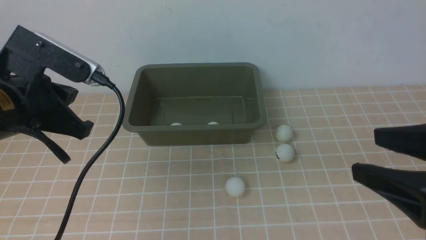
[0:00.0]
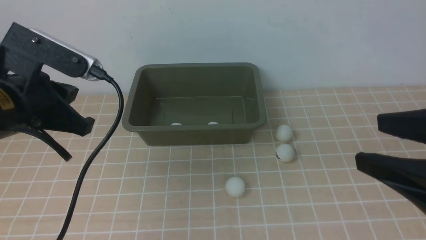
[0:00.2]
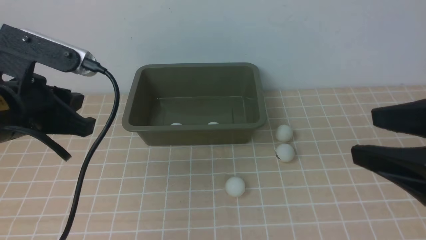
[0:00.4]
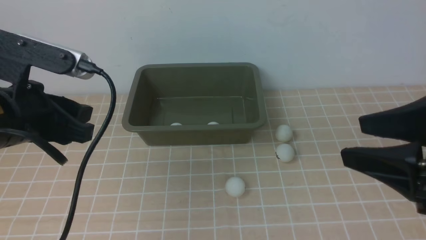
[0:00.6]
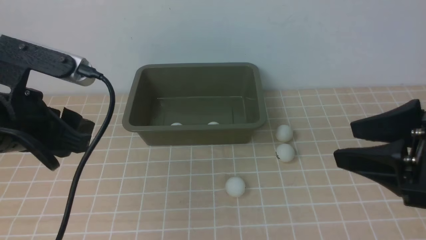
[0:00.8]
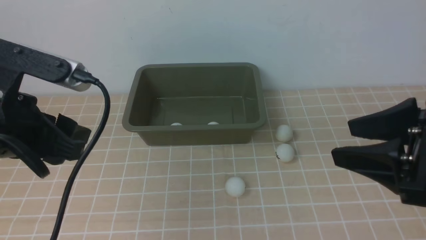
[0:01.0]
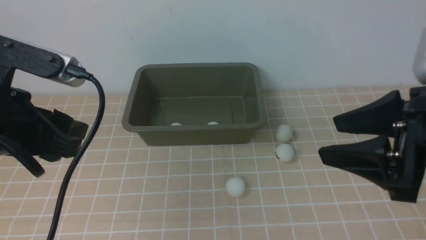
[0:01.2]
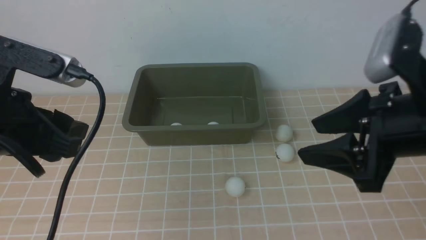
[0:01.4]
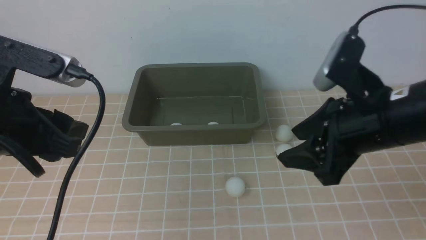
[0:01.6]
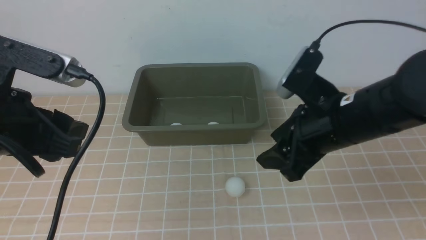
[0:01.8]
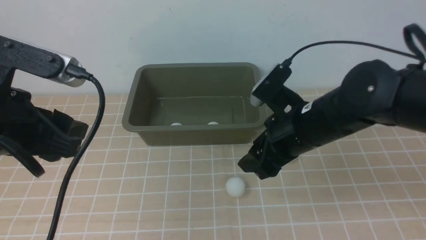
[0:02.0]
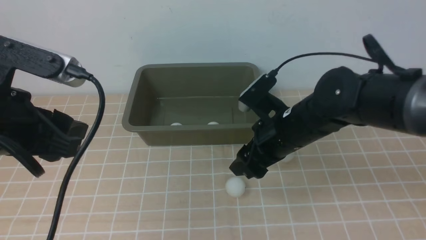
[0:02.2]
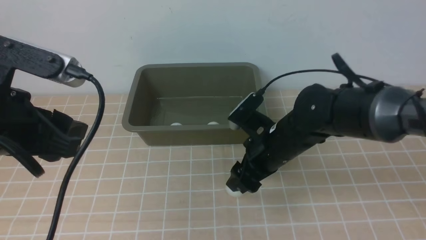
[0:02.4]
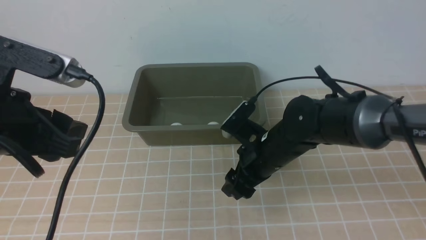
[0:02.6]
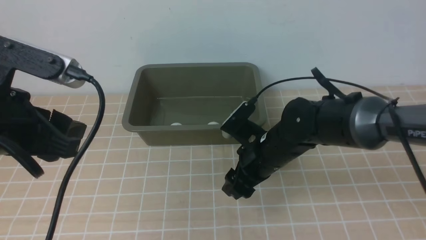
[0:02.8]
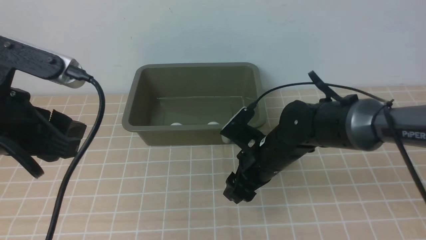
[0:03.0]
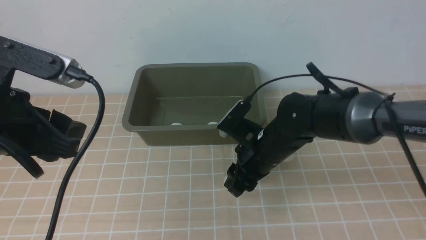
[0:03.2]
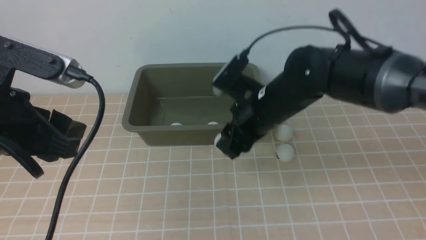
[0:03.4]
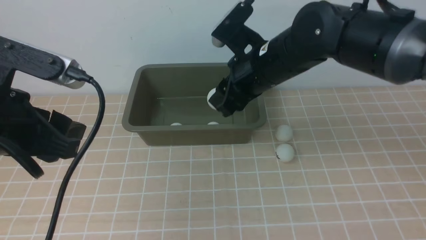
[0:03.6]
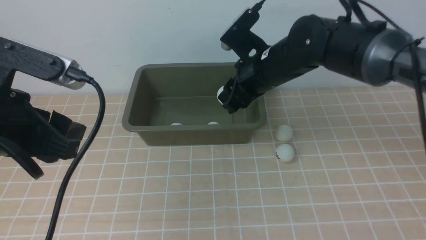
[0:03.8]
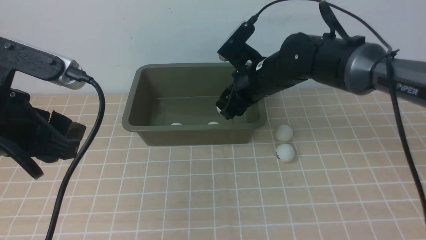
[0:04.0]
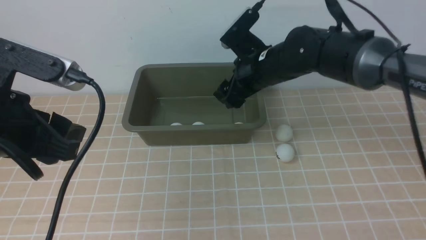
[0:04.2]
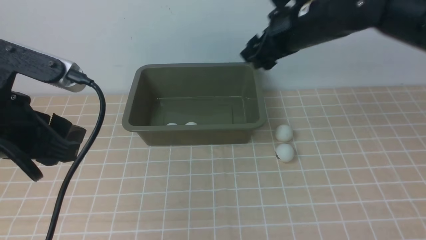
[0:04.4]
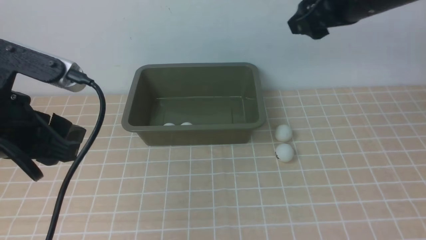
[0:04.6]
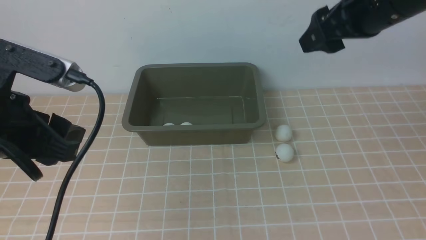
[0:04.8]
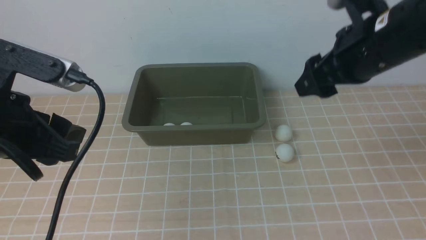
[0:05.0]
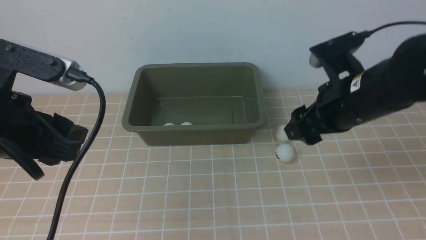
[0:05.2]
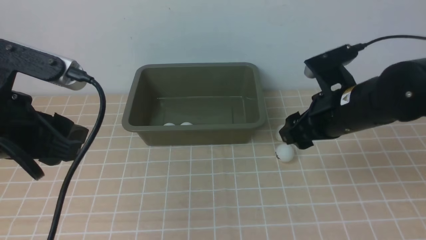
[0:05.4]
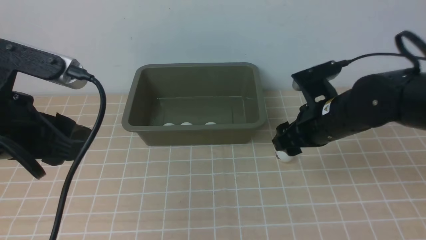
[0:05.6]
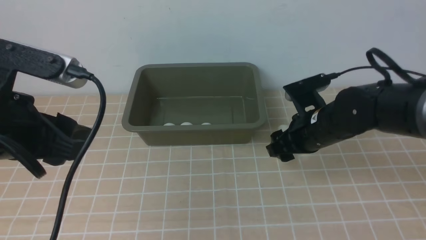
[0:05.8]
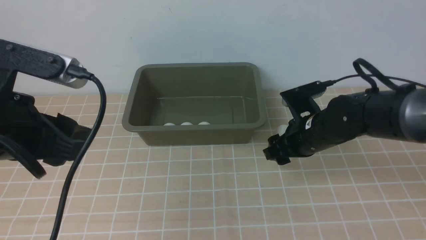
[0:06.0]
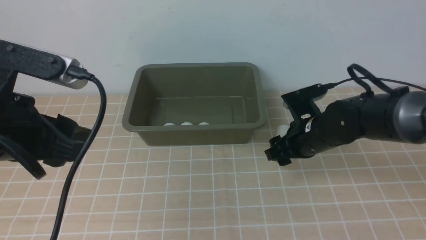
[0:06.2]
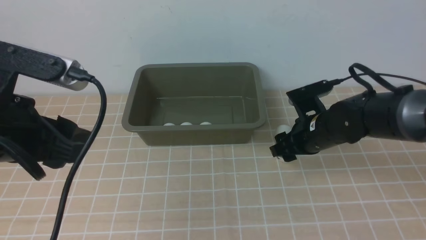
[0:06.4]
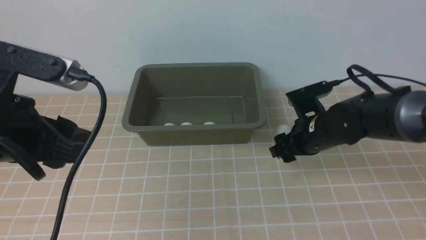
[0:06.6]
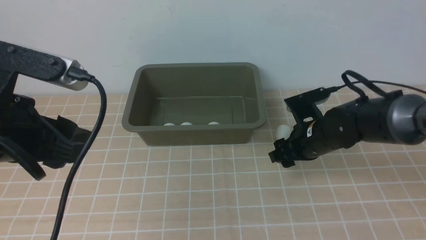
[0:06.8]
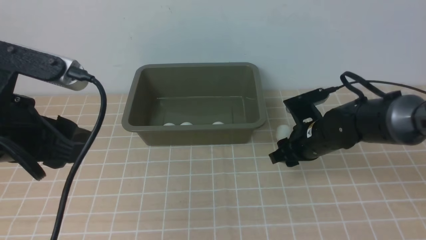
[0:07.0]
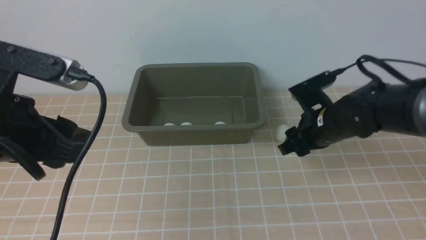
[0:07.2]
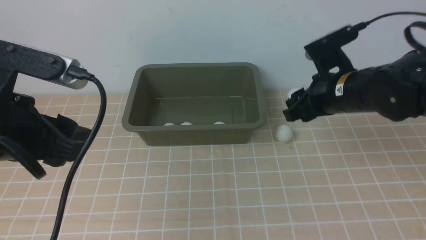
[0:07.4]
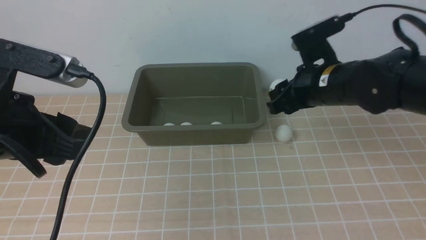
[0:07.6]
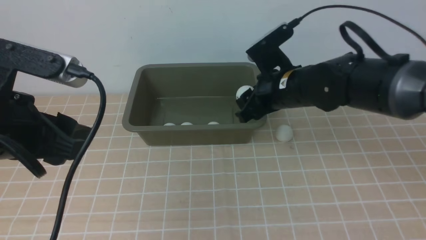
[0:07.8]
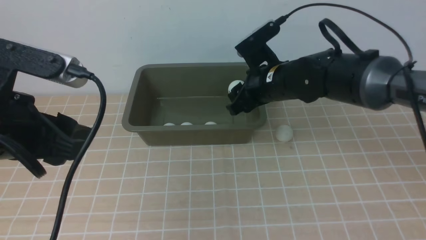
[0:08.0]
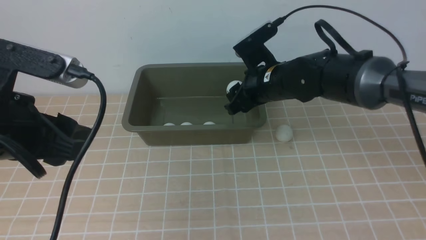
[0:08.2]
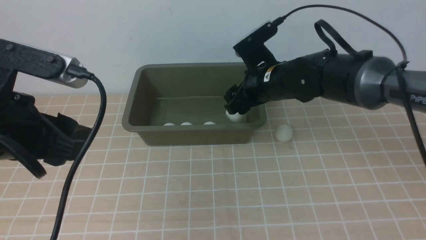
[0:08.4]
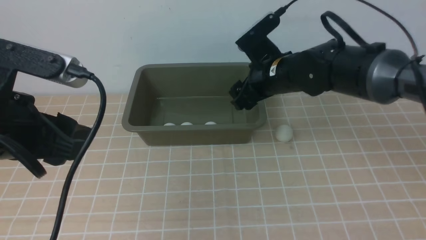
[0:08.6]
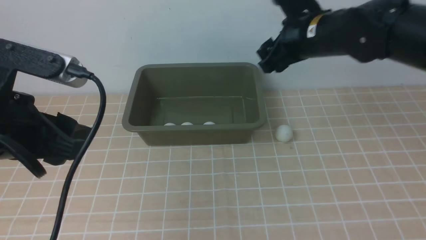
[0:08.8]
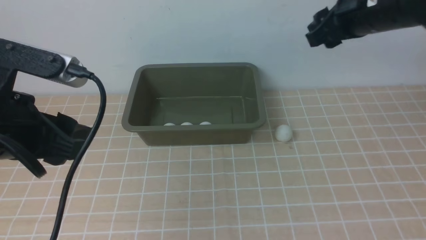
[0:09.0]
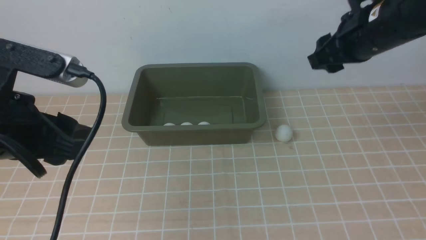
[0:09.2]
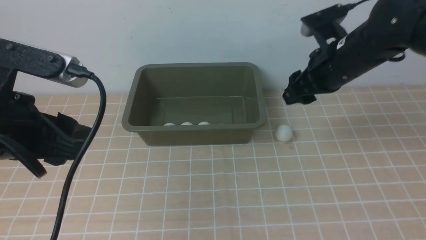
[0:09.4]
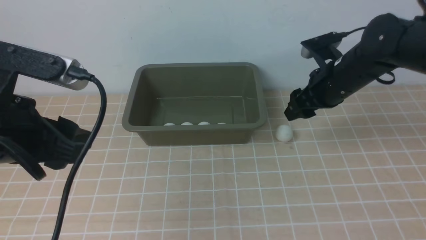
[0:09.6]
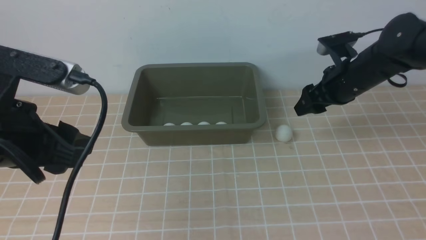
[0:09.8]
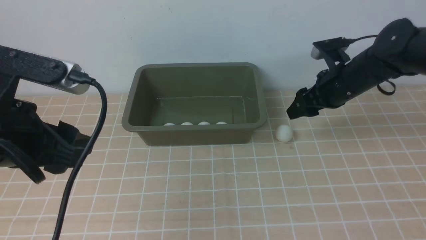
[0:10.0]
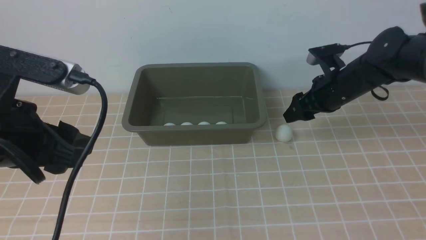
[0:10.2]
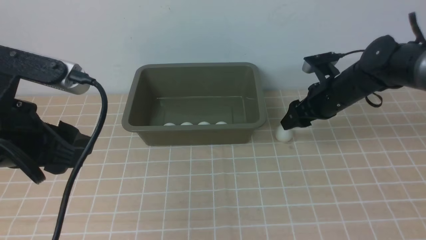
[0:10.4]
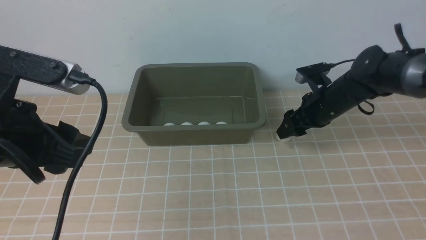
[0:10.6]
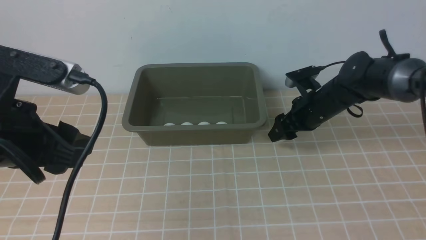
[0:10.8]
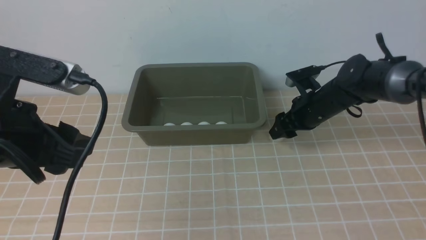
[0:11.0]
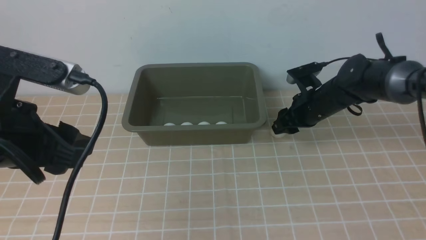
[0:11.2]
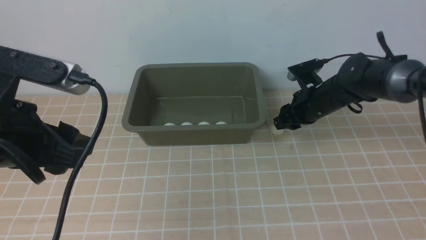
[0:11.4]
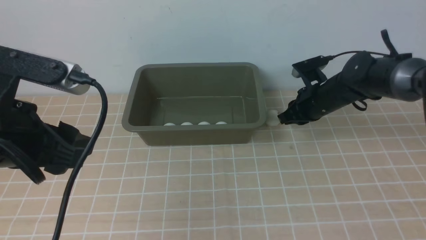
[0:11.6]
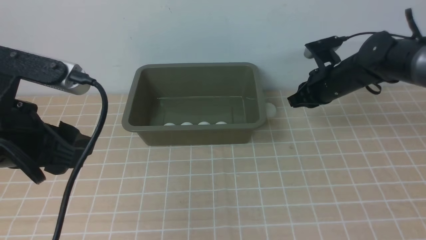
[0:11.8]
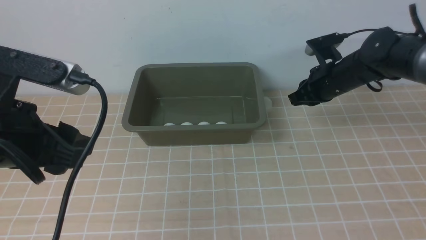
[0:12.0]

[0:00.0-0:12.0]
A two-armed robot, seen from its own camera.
Step, 0:00.0 to 0:03.2: use the right arm to clamp the table tennis ball closest to it.
Step, 0:03.4 to 0:04.2: use the right arm to put the table tennis ball into the box.
Step, 0:04.4 to 0:06.6: use the right arm to clamp the table tennis ball closest to it.
Step, 0:06.8 to 0:08.0: use the right arm to put the table tennis ball into the box.
0:00.0 to 0:01.6: The right gripper is displaced forward and to the left by approximately 15 cm. Meanwhile the left gripper opens up.
0:01.6 to 0:03.0: The right gripper shifts about 20 cm downward, to the left and forward.
0:03.0 to 0:04.4: The right gripper goes about 20 cm upward.
0:04.4 to 0:06.0: The right gripper shifts approximately 15 cm downward.
0:06.0 to 0:07.6: The right gripper is displaced upward by roughly 10 cm.
0:07.6 to 0:09.0: The right gripper goes about 10 cm upward.
0:09.0 to 0:10.4: The right gripper shifts approximately 15 cm downward.
0:10.4 to 0:12.0: The right gripper closes up.

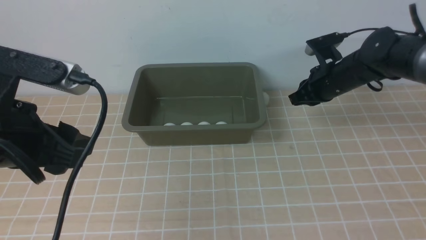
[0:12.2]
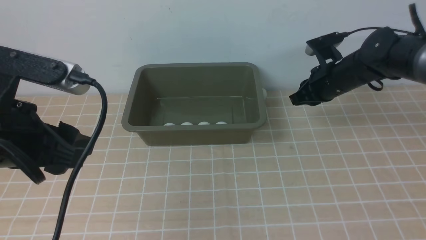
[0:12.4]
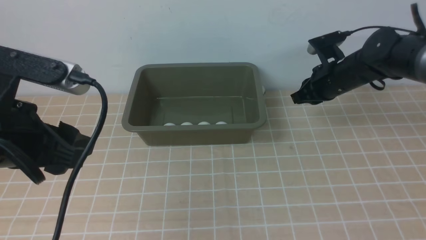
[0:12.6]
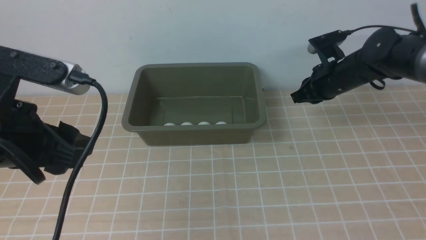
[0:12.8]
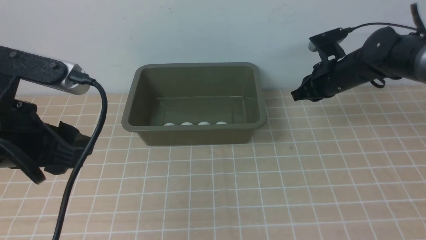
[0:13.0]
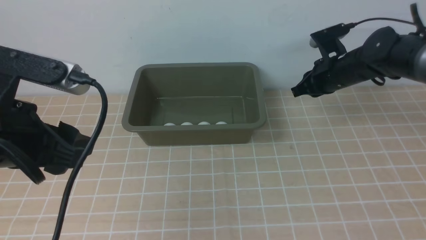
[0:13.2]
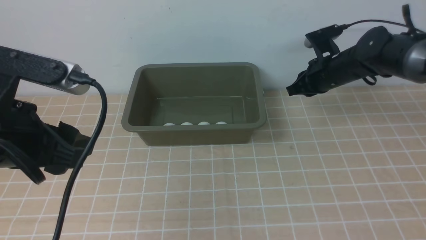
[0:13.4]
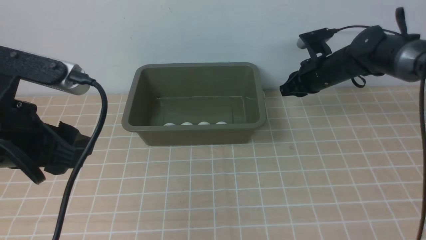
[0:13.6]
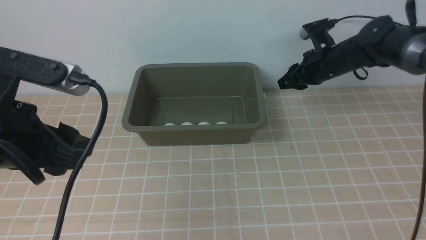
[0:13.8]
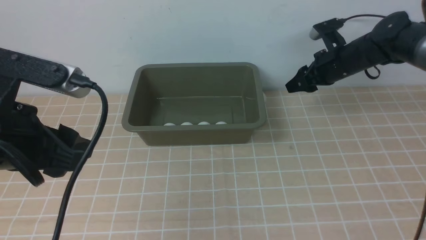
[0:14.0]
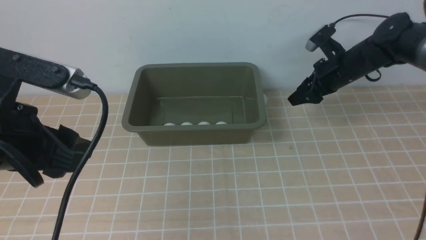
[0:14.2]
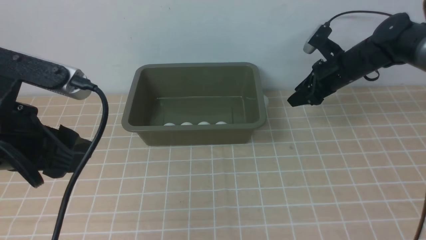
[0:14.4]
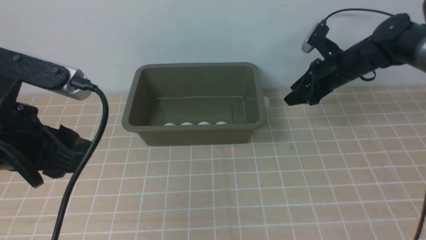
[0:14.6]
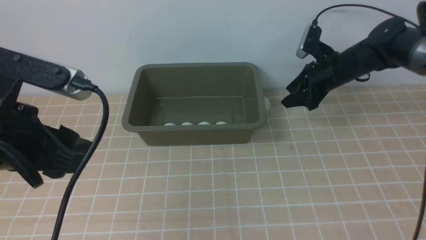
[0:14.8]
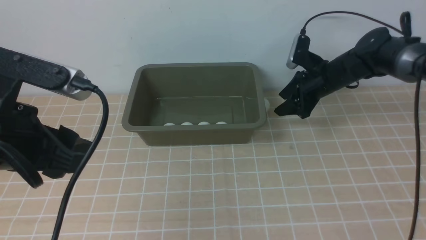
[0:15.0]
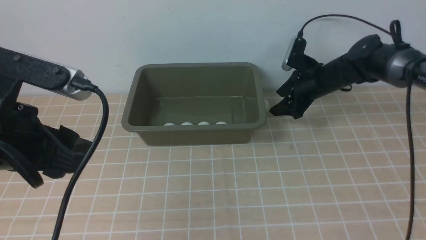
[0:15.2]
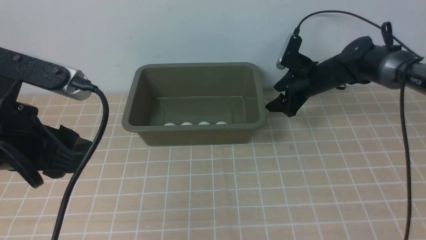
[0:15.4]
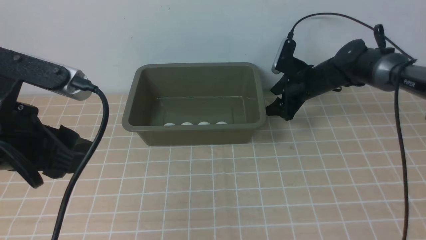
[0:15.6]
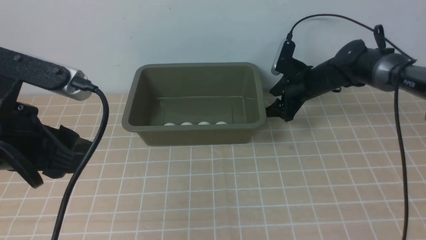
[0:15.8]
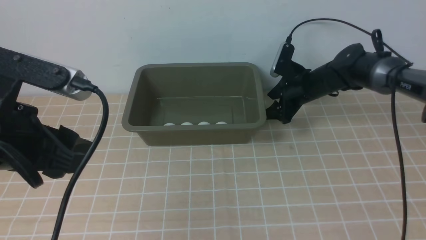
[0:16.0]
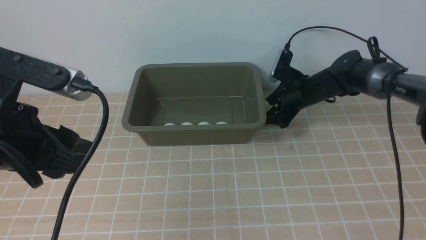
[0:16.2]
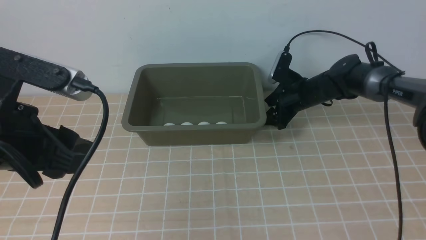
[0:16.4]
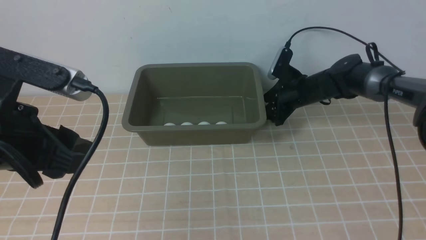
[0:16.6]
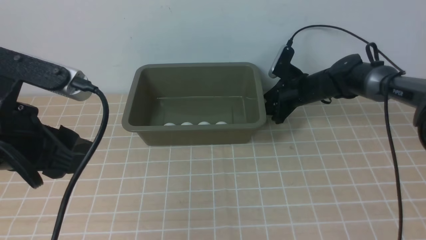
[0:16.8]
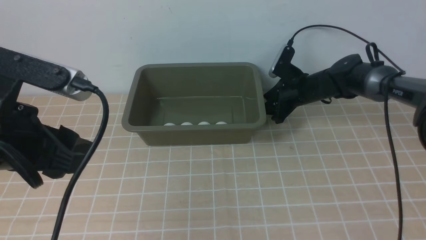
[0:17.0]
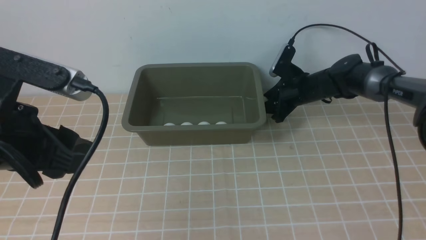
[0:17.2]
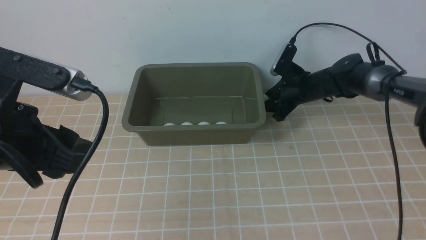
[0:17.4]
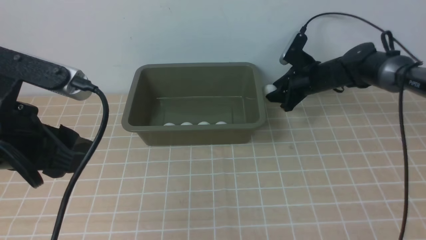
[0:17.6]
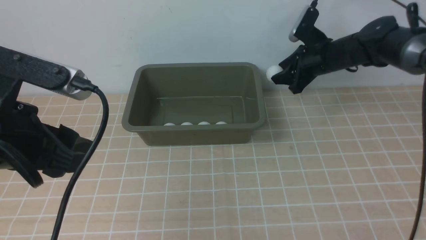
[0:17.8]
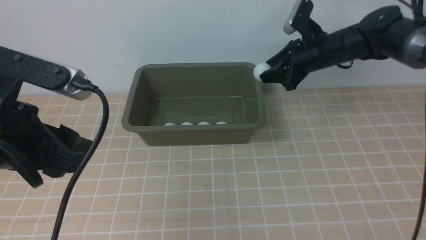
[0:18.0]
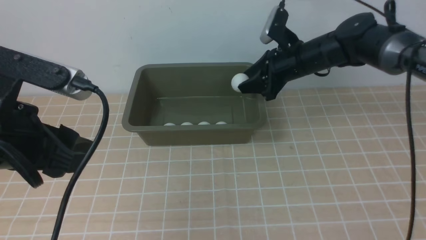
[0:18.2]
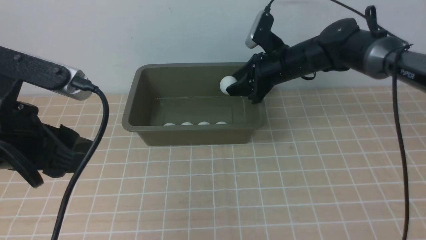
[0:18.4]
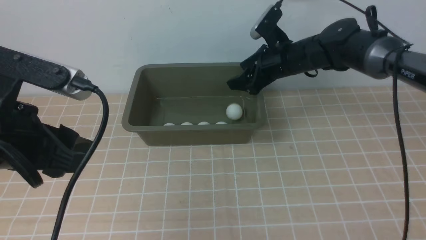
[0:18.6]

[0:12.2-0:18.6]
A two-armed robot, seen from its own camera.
Step, 0:12.2 to 0:17.6: use the right arm to clamp the table tennis ball closest to it.
0:12.2 to 0:13.8: The right gripper opens up.
0:13.8 to 0:15.4: The right gripper opens its fingers.
0:15.4 to 0:17.0: The right gripper closes.
0:17.0 to 0:18.6: The right gripper is displaced upward by roughly 10 cm.
